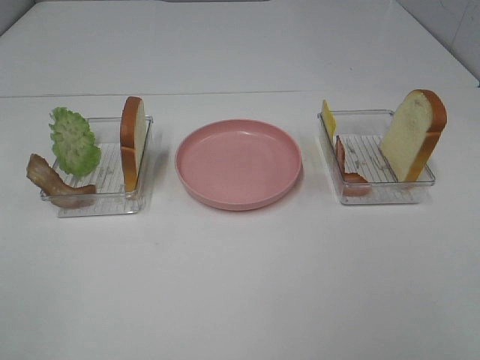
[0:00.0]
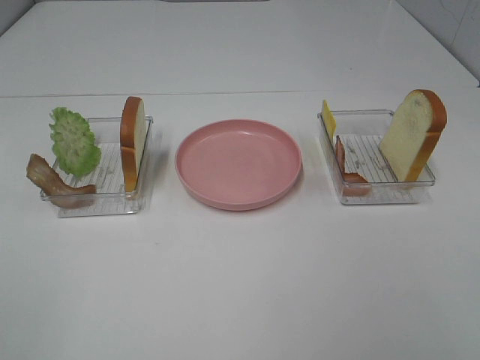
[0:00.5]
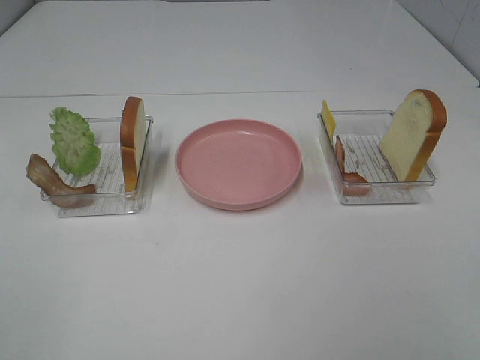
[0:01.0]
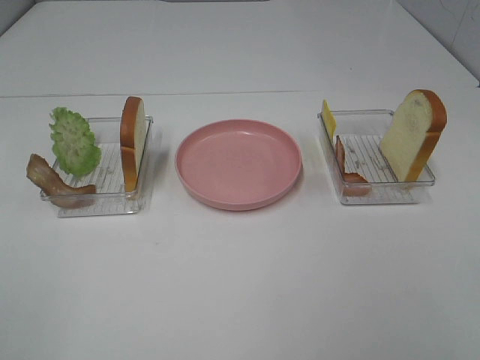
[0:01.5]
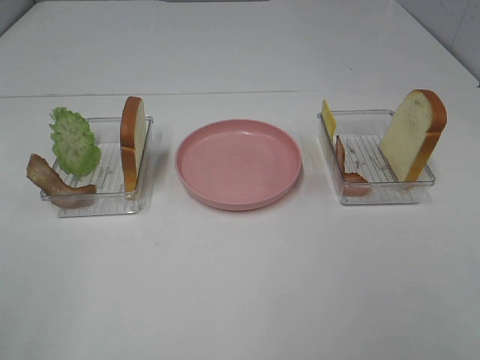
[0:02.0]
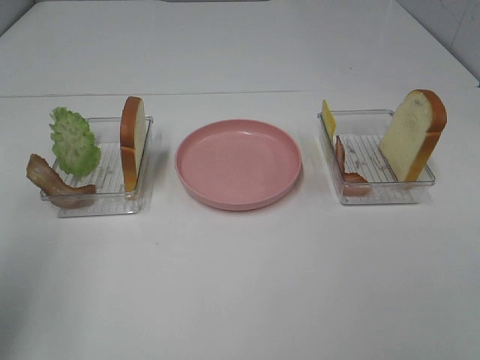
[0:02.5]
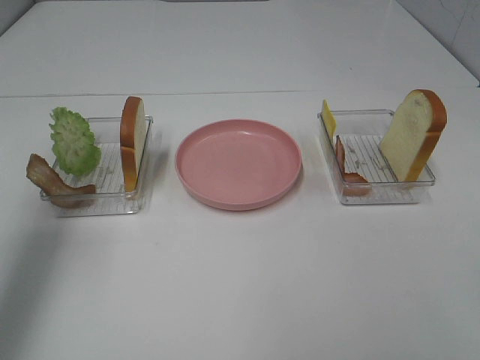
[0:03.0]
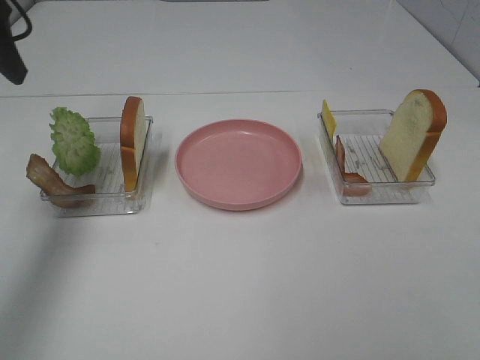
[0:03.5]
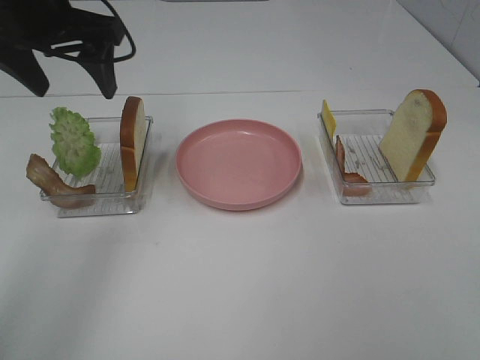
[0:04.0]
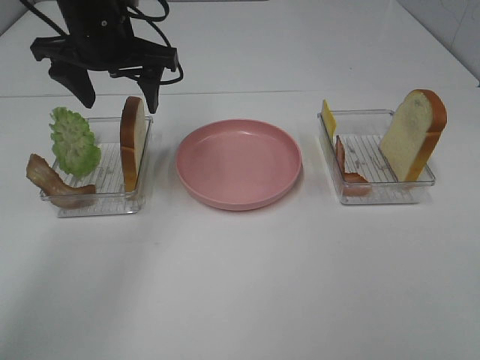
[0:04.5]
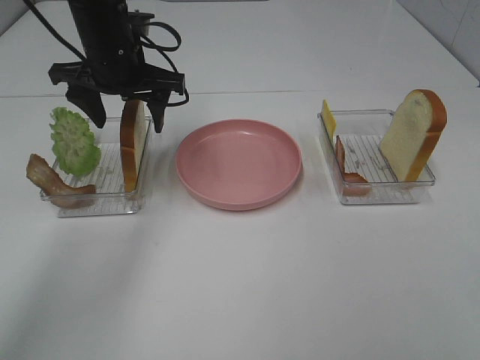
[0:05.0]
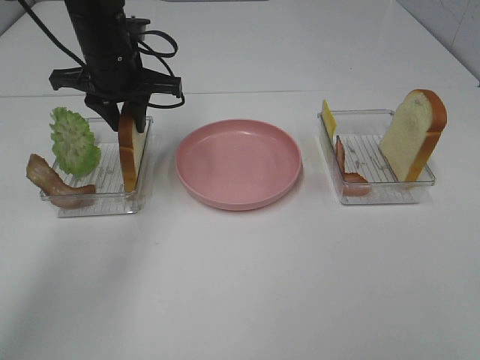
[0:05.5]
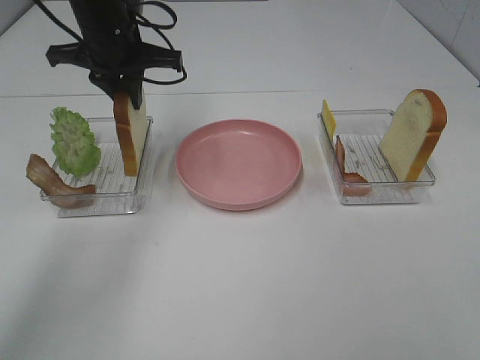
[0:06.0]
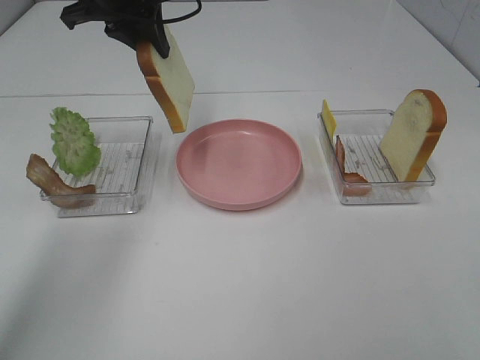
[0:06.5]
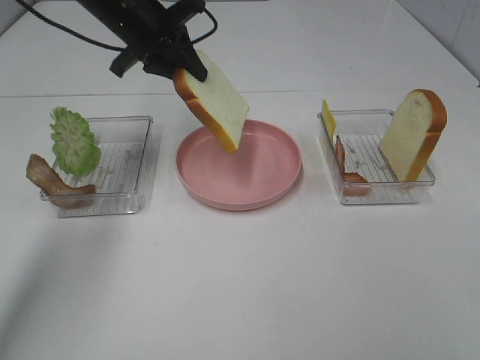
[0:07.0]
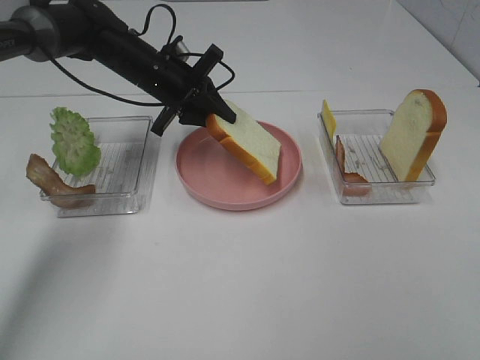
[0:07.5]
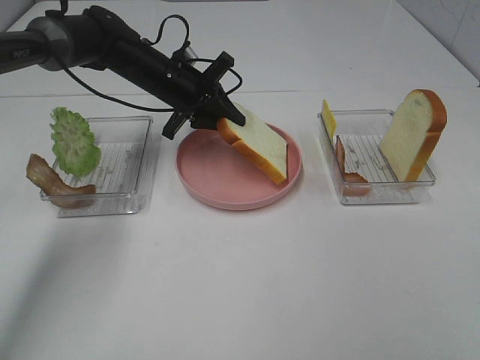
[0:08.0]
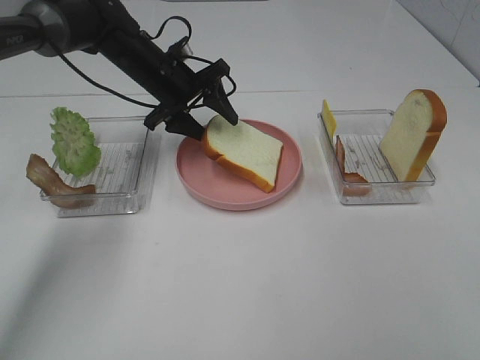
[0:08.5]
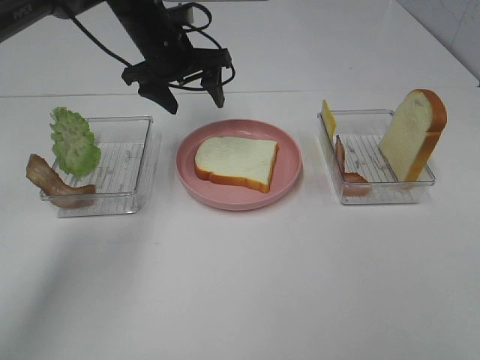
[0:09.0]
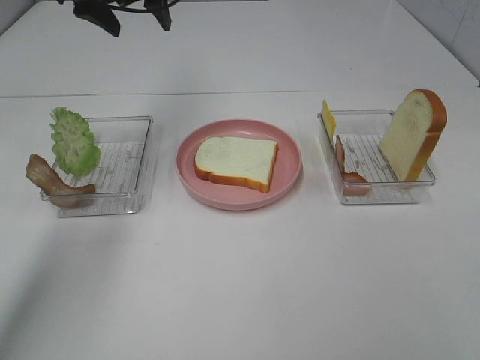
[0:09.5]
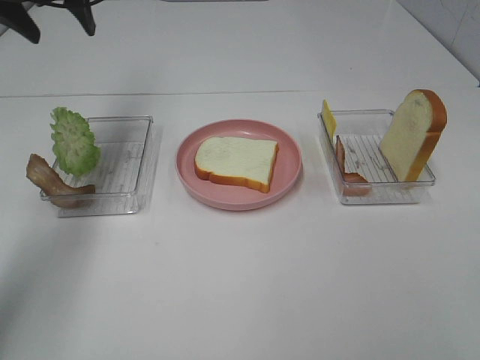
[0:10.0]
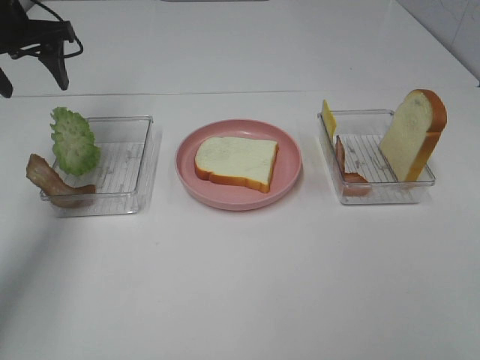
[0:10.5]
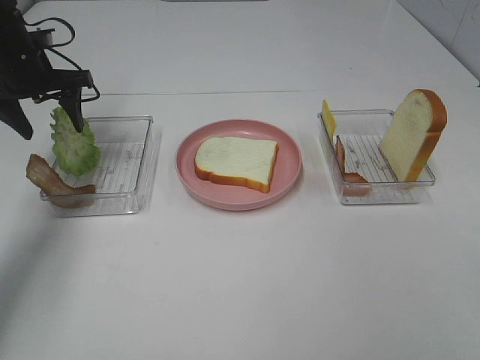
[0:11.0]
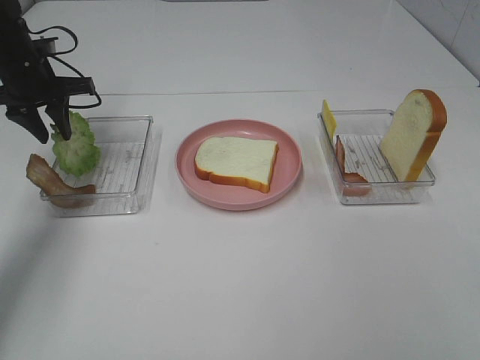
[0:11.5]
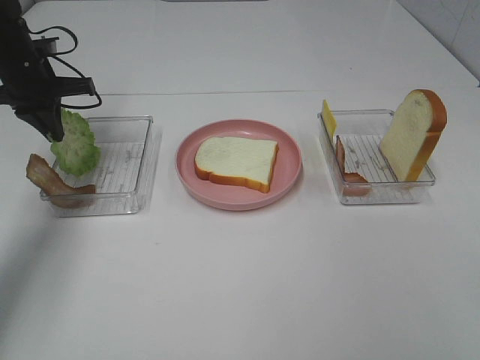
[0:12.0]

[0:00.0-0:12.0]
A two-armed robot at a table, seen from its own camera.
Task of the whole recording: Make sandwiches.
Step, 0:00.0 to 0:05.5: Left hand:grab the bread slice.
Step, 0:06.0 to 0:08.5: Left hand:place the bread slice on the plate.
0:02.0 to 0:04.0: The left gripper heads forward, covering roughly 35 cm.
0:04.0 to 0:06.0: The left gripper shifts approximately 10 cm forward and downward, and closes its fingers.
0:06.0 to 0:08.0: The left gripper moves downward, about 10 cm.
0:08.0 to 0:10.0: The left gripper heads upward and to the left, covering about 25 cm, and opens.
0:10.0 to 0:12.0: The left gripper travels downward by roughly 15 cm, and closes up.

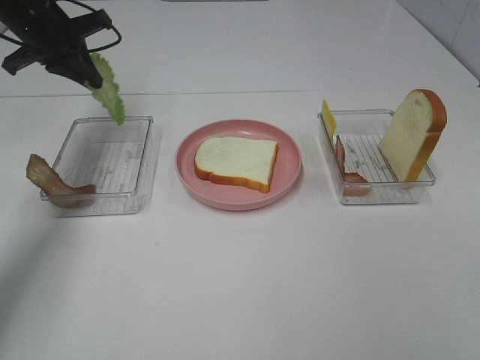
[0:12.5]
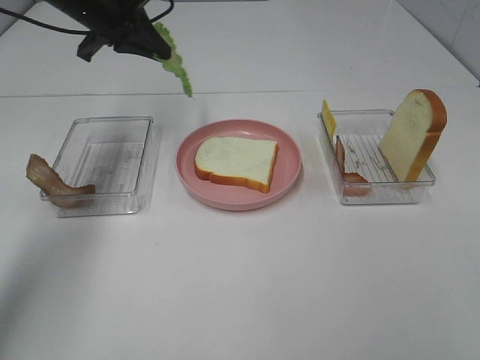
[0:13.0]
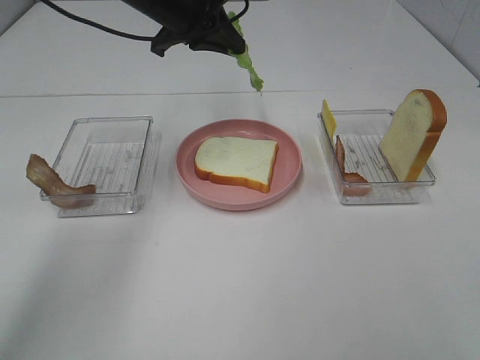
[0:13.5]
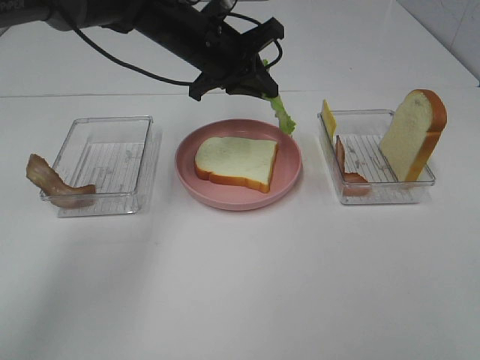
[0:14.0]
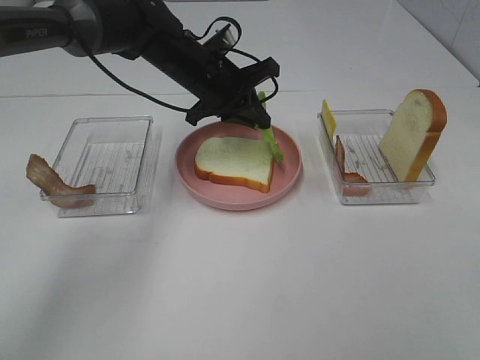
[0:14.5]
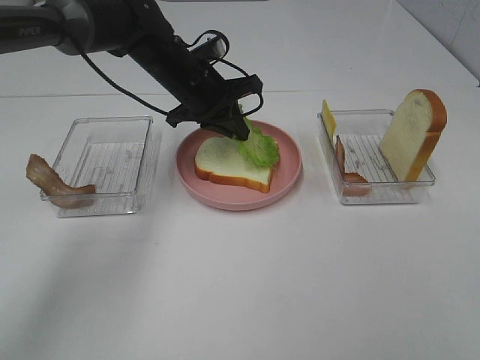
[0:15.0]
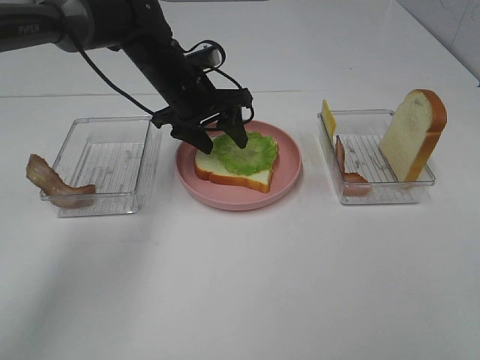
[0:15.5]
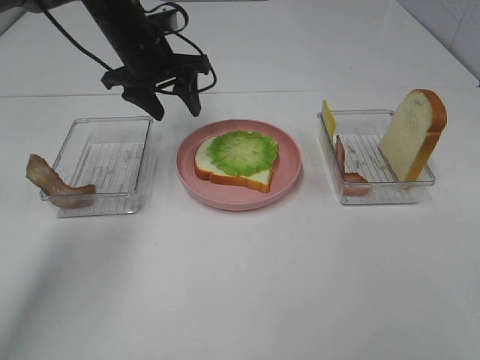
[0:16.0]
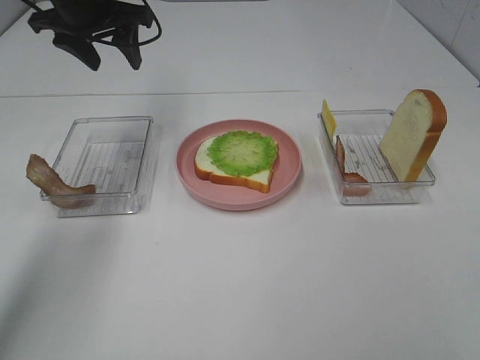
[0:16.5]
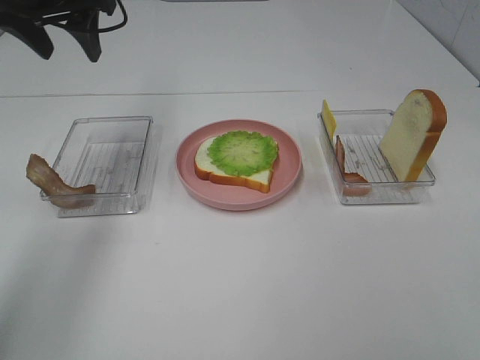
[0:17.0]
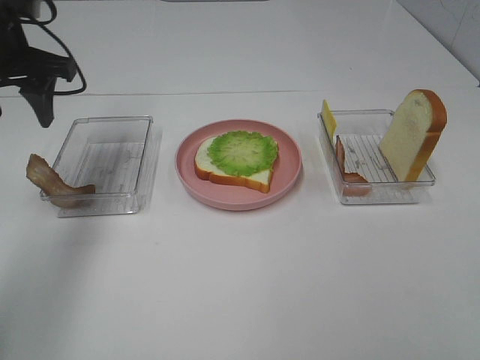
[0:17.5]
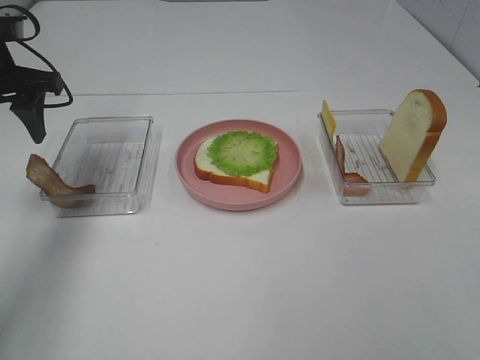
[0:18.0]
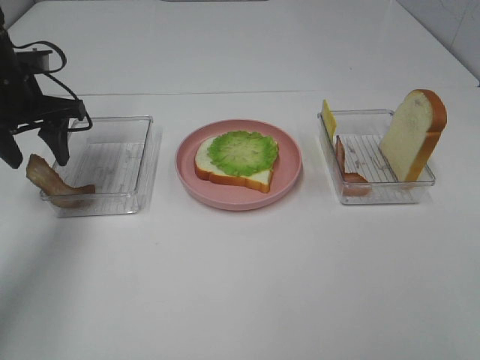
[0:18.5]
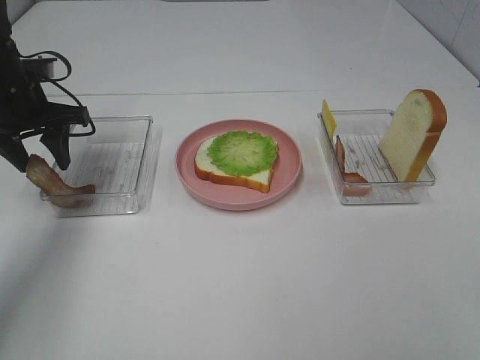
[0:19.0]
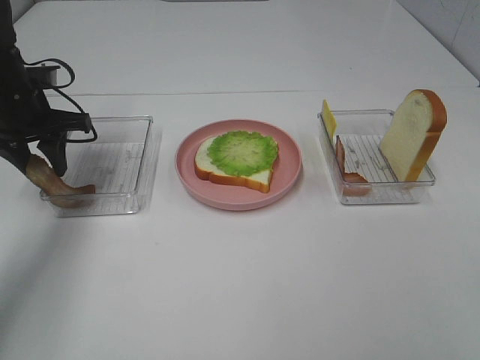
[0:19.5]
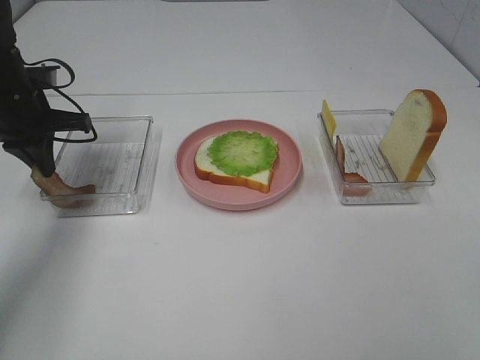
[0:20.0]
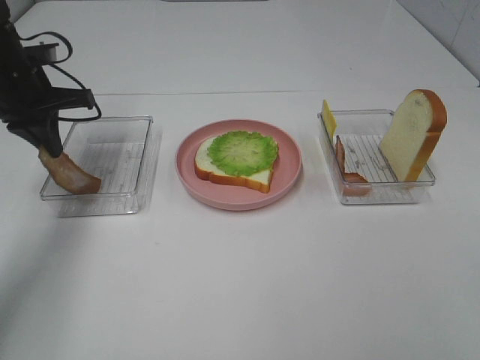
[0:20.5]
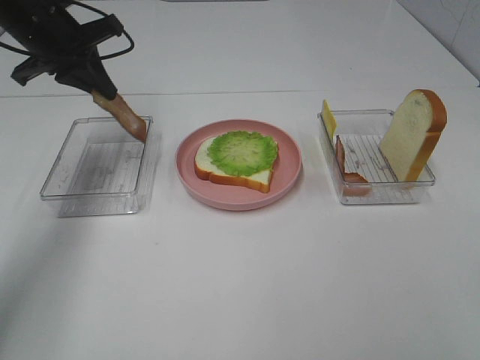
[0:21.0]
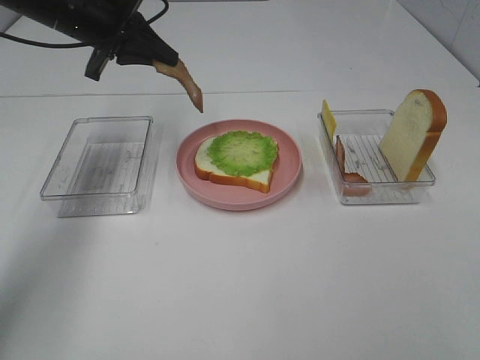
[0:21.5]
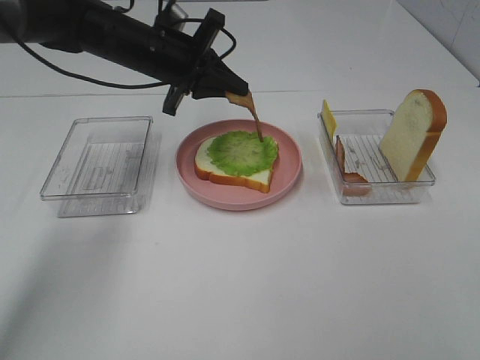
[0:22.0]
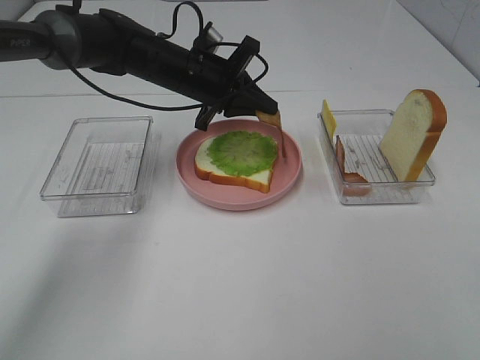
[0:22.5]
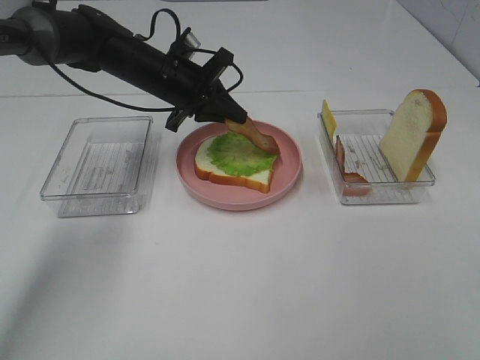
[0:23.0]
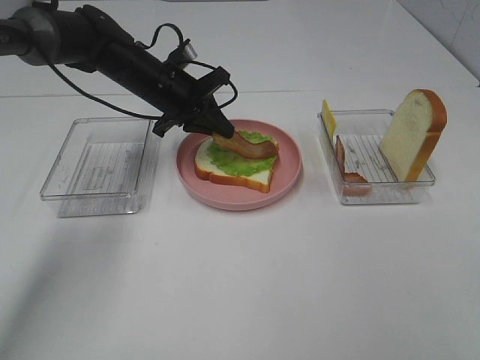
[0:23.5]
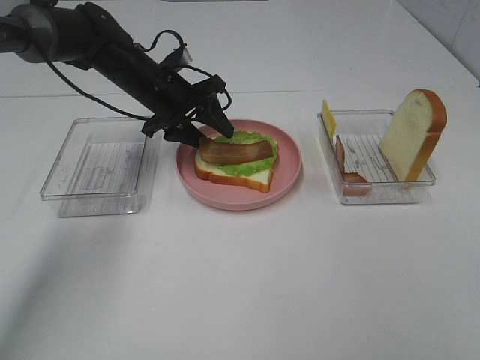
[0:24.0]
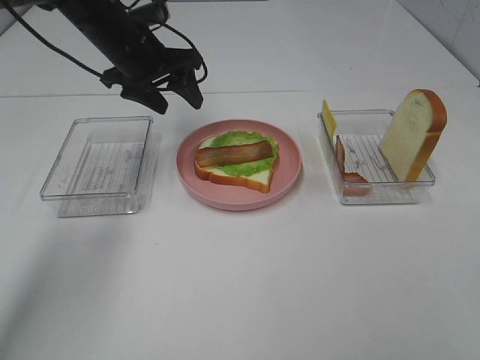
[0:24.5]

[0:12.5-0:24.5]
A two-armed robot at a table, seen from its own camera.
Task of the whole recording: Make sandwiches.
Step, 0:12.5 to 0:15.5: Left hand:place the lettuce slice on the bread slice.
Step, 0:16.0 to 0:20.0: Left hand:grab the bacon.
Step, 0:20.5 to 0:24.0: Left hand:place bacon on lettuce slice.
0:12.5 to 0:14.5: The left gripper travels to the right by roughly 20 cm.
0:14.5 to 0:16.5: The left gripper goes roughly 20 cm to the left and upward, and opens up.
0:16.5 to 0:18.5: The left gripper heads downward, to the left and backward, covering approximately 15 cm.
0:18.5 to 0:20.5: The left gripper closes up.
0:20.5 to 0:22.5: The left gripper goes some 20 cm to the right.
0:22.5 to 0:24.5: The left gripper shifts some 10 cm to the left and upward, and opens.

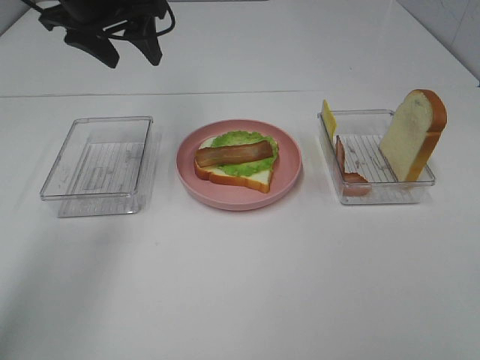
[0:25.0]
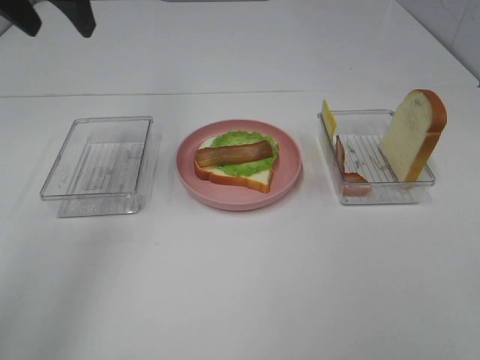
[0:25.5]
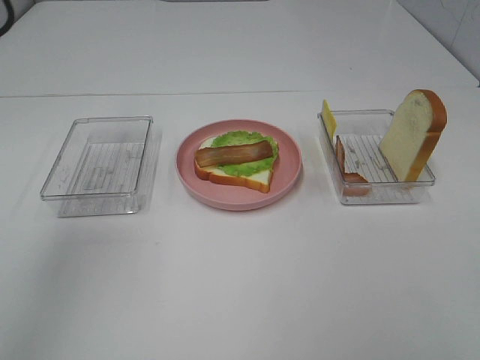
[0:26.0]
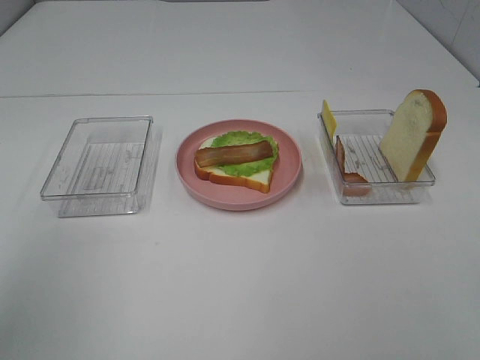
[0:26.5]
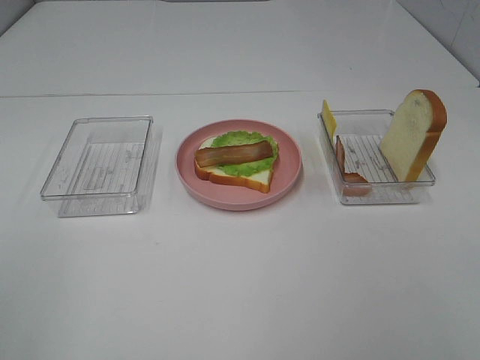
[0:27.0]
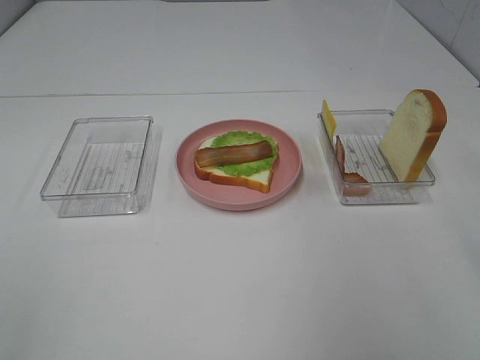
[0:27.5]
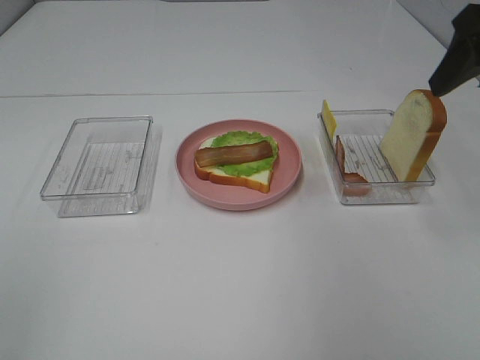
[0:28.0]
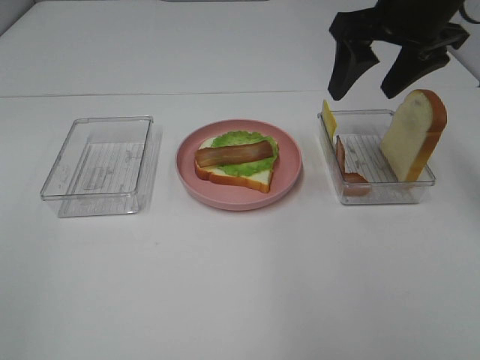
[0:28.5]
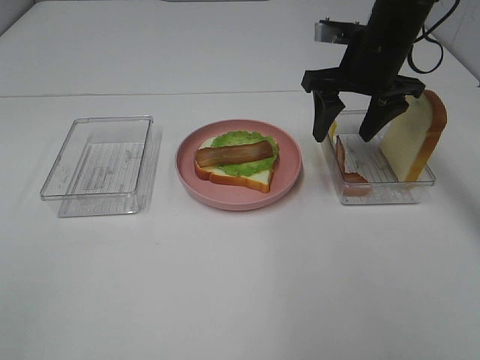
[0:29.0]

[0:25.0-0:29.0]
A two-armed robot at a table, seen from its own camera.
Task of the whole recording: Make sandwiches.
0:25.0 to 0:27.0: The left gripper moves backward, some 40 cm.
0:27.0 to 0:29.0: The right gripper moves forward, roughly 40 cm.
